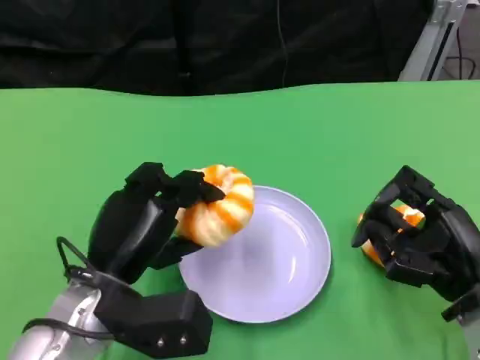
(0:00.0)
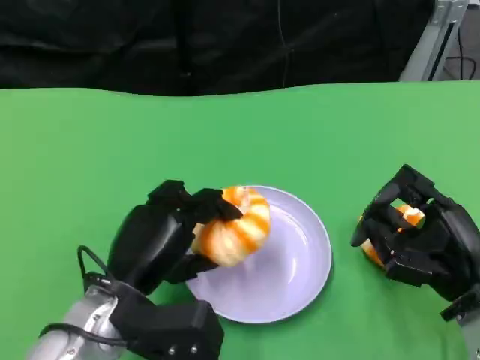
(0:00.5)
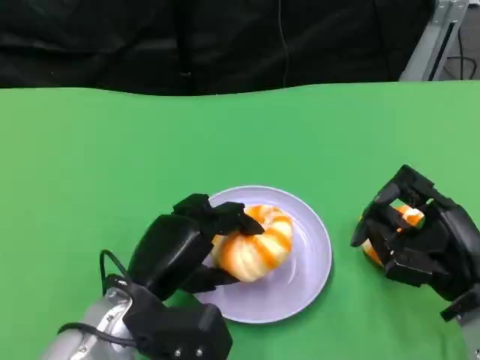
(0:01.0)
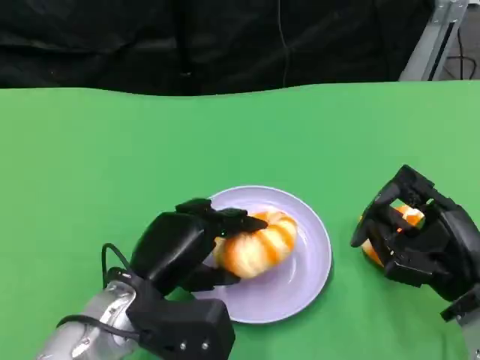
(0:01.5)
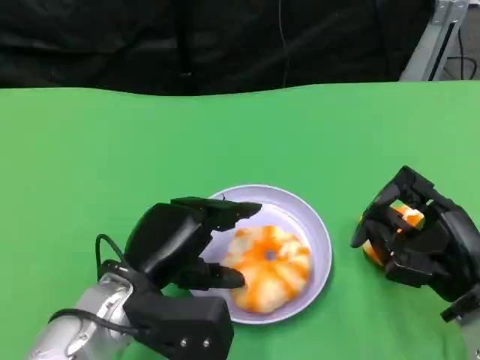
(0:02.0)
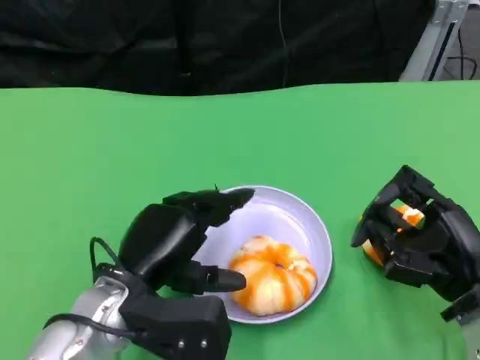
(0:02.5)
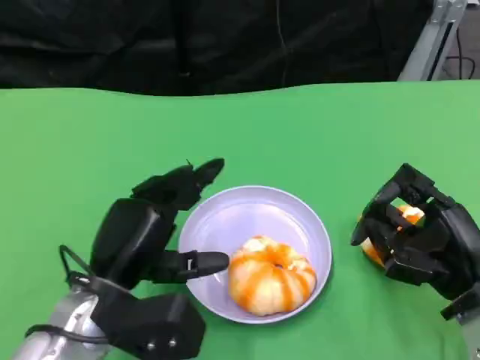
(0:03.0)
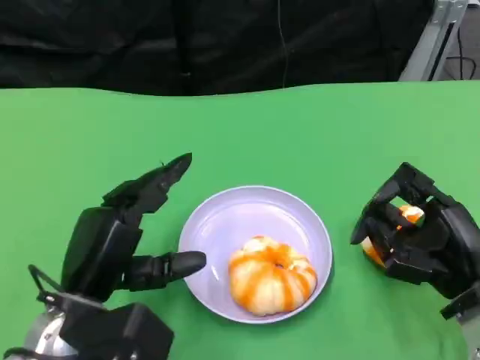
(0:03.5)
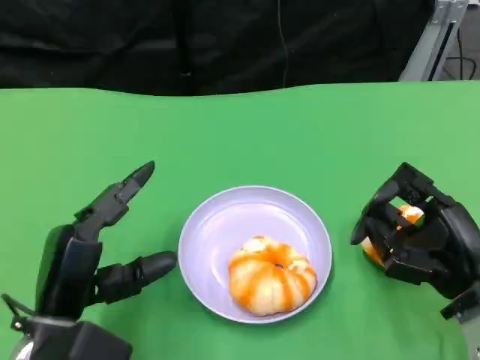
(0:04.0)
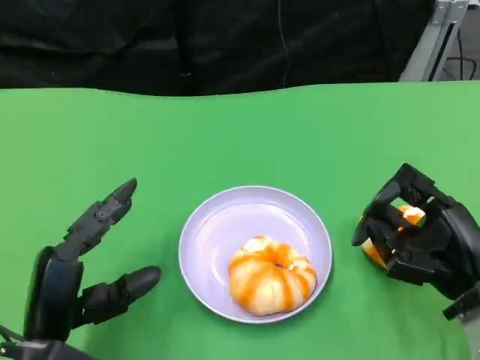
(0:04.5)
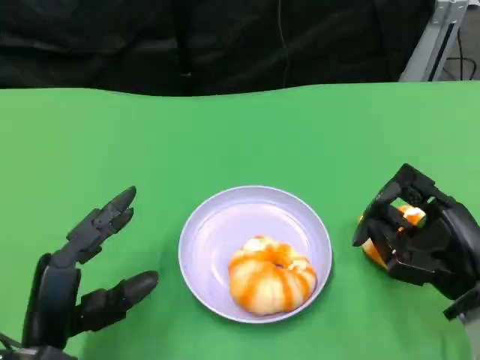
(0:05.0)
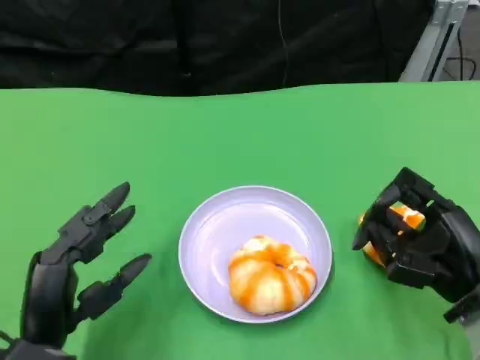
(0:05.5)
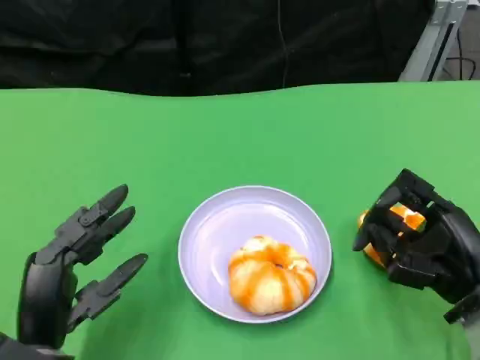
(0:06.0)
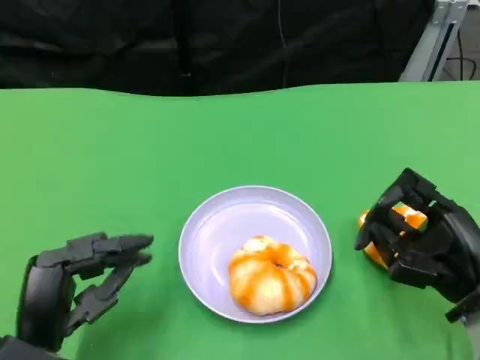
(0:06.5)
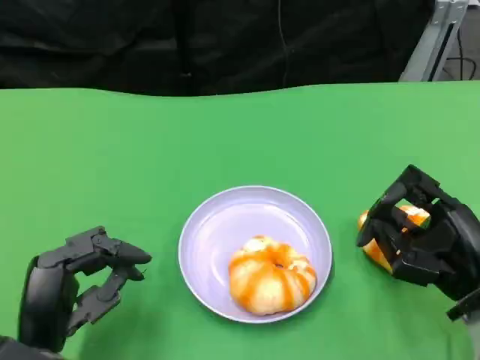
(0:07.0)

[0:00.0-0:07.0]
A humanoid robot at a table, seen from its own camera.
Task of the whole recording: Grasp the bread from the table and place it into the plate.
0:00.0 to 0:02.0: There are only small adjustments of the hands.
0:02.0 to 0:03.5: The left hand moves some 5 cm.
0:03.5 to 0:05.0: The left hand ends up about 5 cm from where it was.
0:05.0 to 0:07.0: The hands stay close to where they were, moving slightly.
